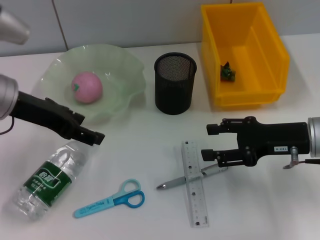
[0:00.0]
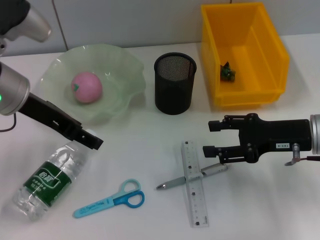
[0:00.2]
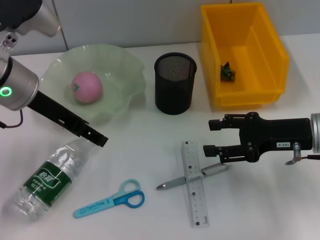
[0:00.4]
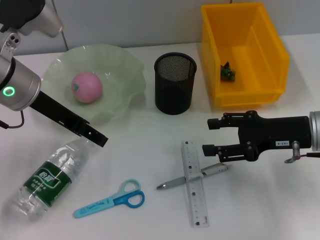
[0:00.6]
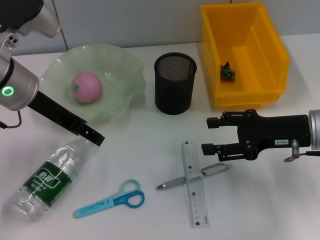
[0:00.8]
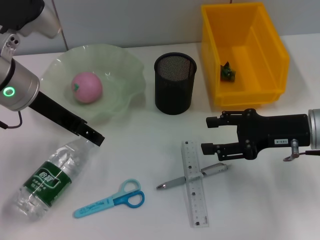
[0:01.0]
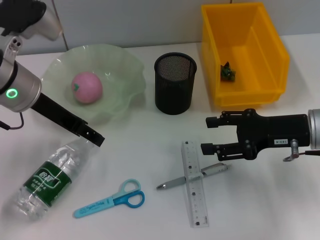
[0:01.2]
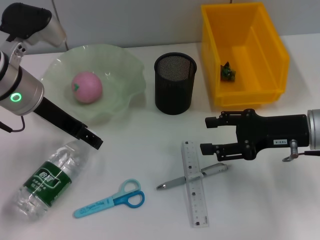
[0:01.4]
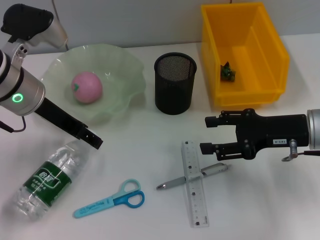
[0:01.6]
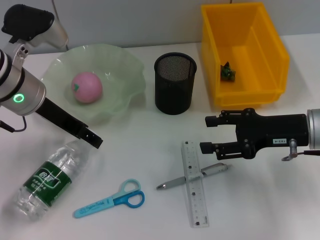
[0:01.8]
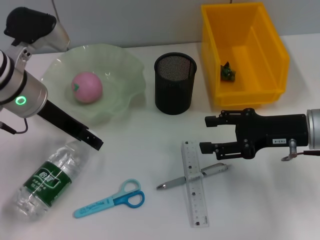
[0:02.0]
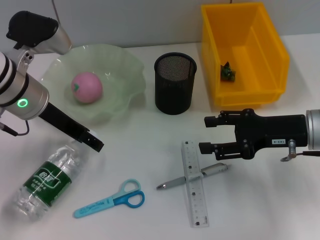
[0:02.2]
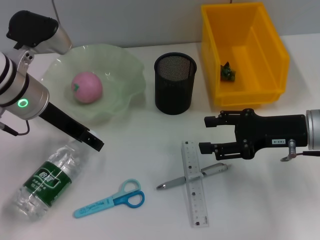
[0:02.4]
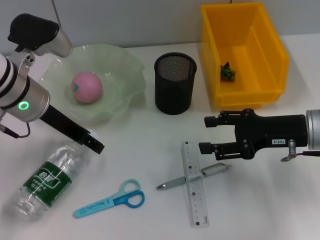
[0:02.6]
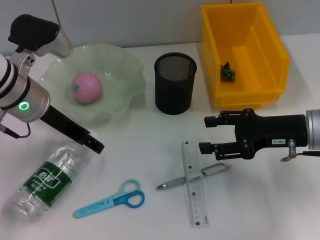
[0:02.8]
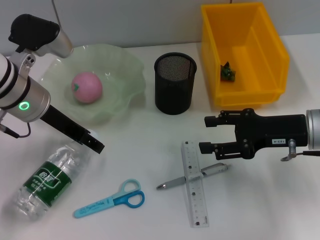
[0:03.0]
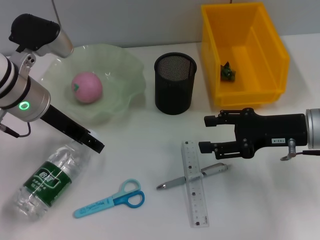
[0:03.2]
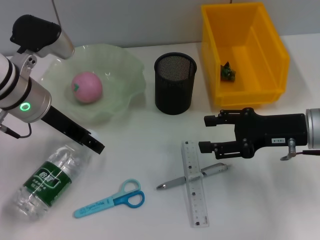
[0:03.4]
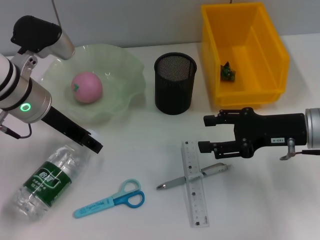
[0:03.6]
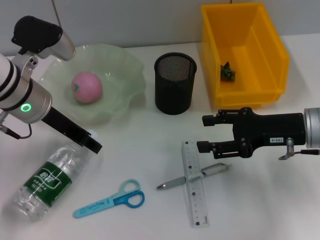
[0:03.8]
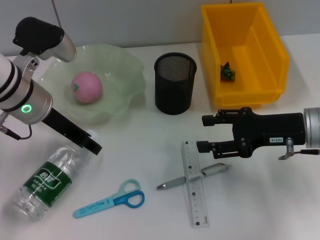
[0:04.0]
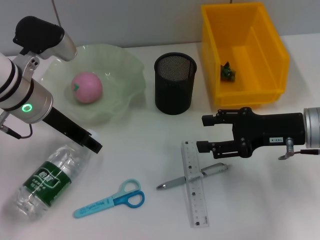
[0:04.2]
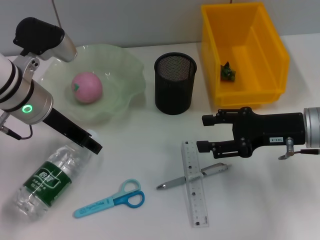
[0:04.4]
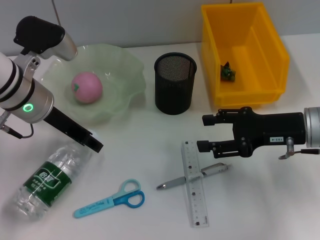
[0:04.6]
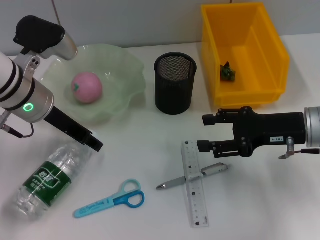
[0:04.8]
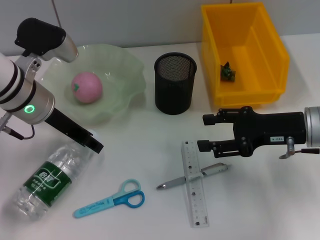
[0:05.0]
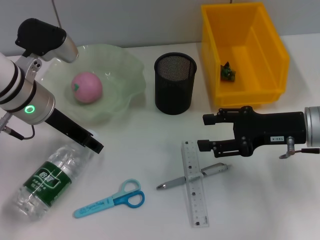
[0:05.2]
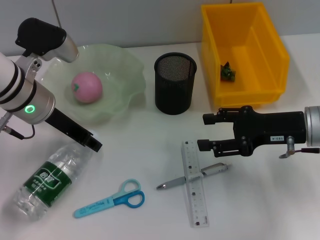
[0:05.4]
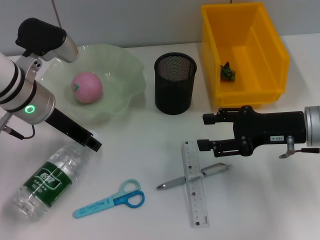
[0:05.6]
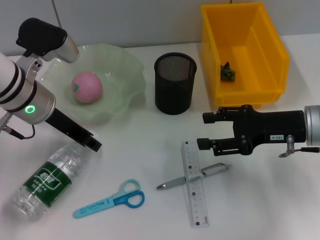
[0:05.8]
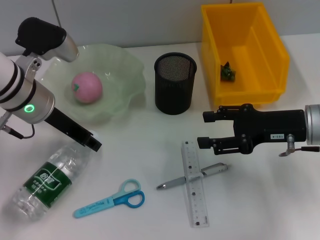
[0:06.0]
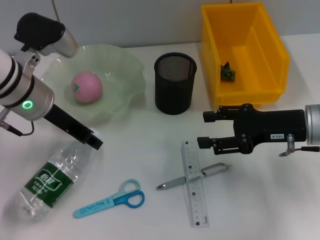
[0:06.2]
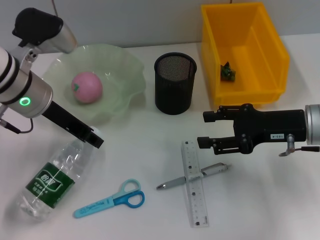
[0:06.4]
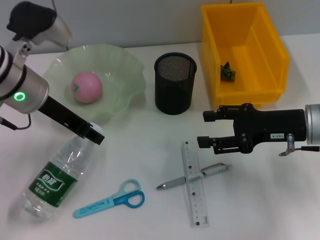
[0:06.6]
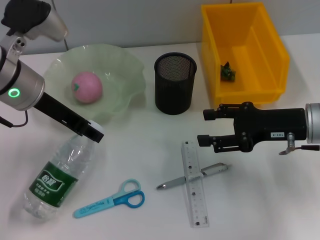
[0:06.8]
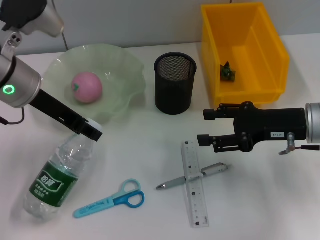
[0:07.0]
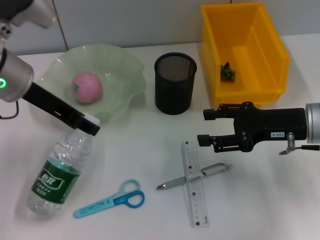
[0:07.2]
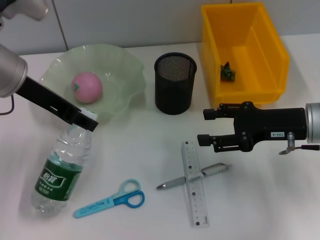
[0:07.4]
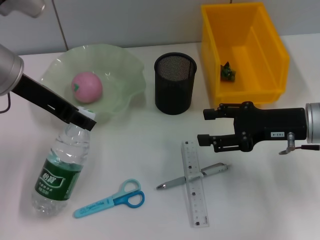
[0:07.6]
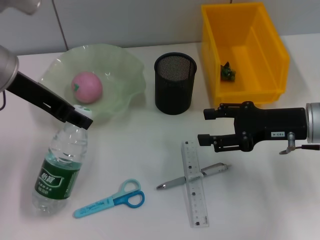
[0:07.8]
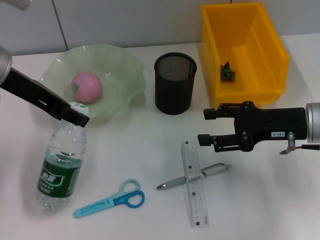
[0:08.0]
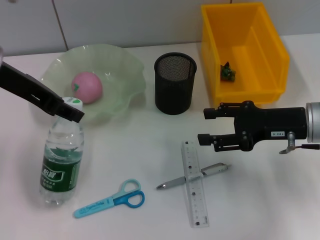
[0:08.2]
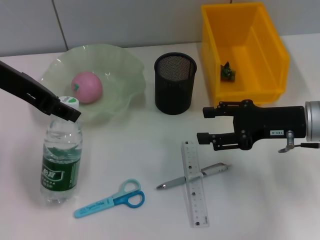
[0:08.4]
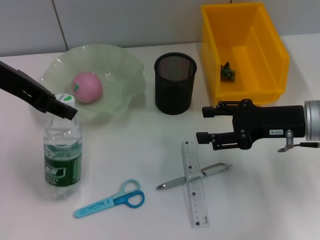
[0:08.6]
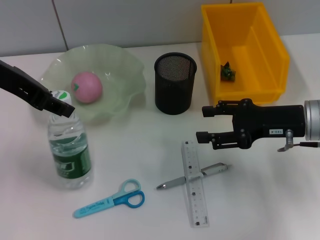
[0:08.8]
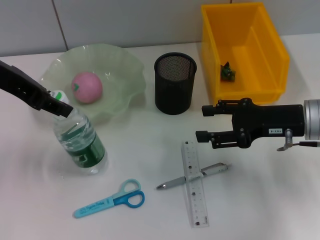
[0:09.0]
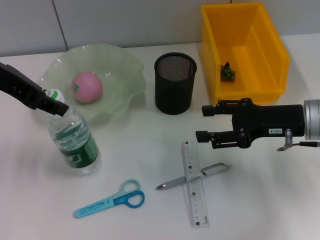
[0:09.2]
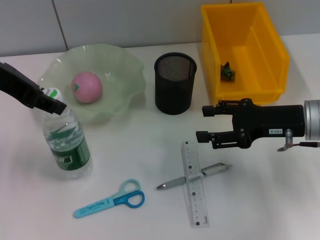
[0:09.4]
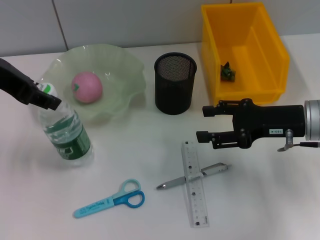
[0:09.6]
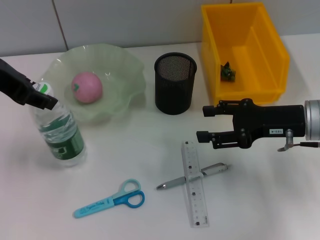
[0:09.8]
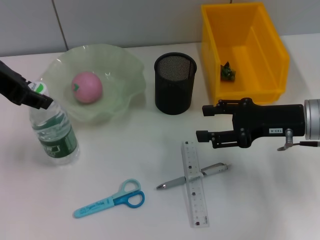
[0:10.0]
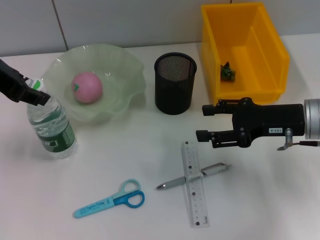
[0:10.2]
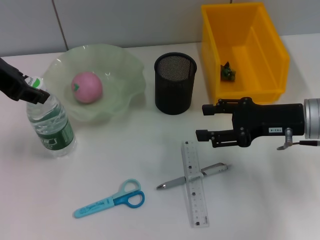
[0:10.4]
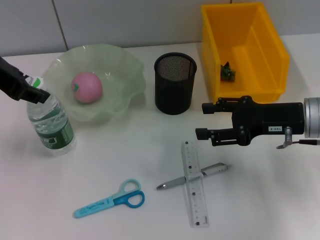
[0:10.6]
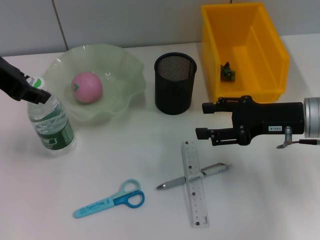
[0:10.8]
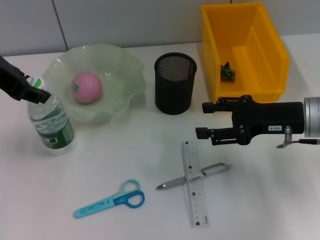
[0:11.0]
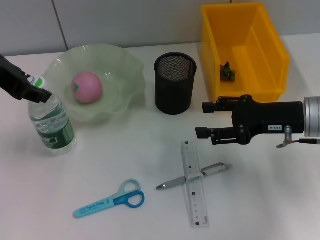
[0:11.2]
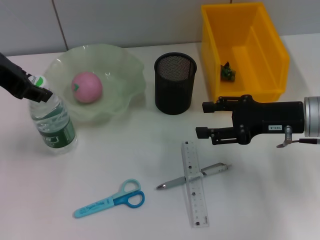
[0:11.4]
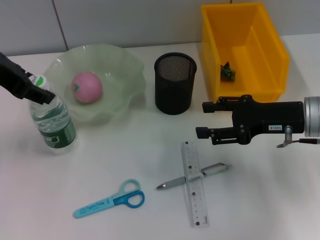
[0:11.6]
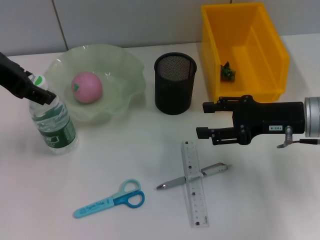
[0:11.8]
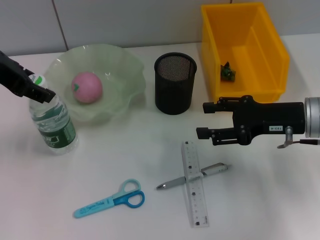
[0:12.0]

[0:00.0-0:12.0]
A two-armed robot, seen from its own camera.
Step, 0:00.0 to 0:05.8: Grab the water bottle with the left hand.
Step, 0:06.0 to 0:11.8: Place the water bottle on the table with the left hand.
0:00.0 to 0:03.0: The grippers move only a little.
0:03.0 to 0:06.0: Both grippers stay put.
0:06.0 to 0:07.6: The left gripper goes roughly 5 cm upward.
0:07.6 to 0:09.0: The left gripper changes place by roughly 5 cm.
0:09.0 to 0:10.4: The grippers stay close to where they were, moving slightly.
0:10.4 to 0:12.0: Both grippers stay about where they are.

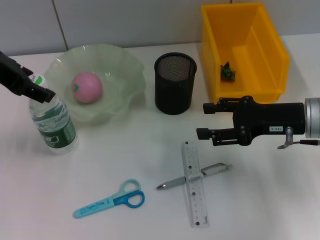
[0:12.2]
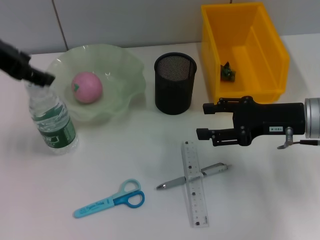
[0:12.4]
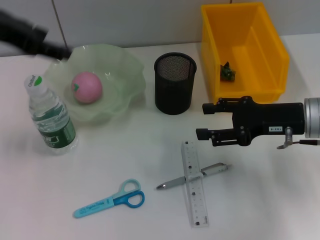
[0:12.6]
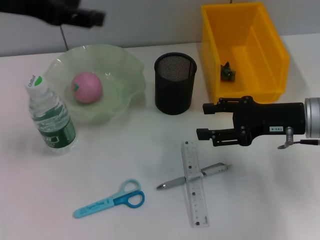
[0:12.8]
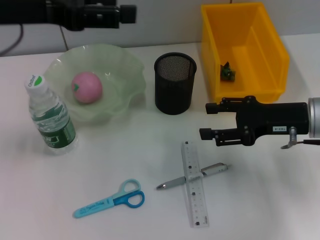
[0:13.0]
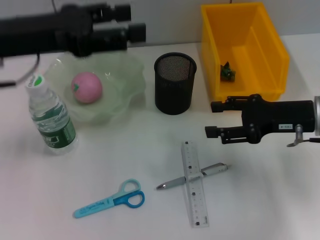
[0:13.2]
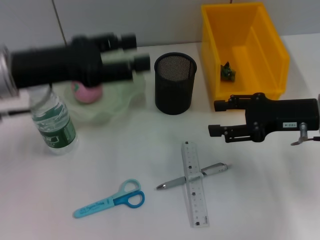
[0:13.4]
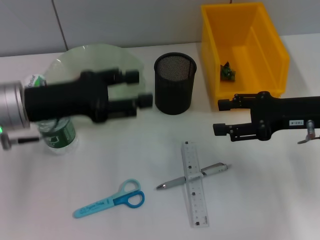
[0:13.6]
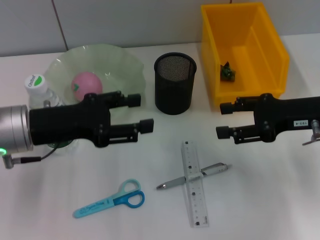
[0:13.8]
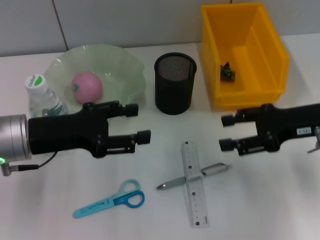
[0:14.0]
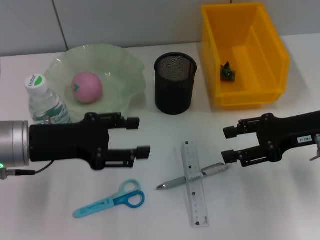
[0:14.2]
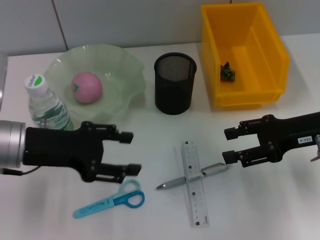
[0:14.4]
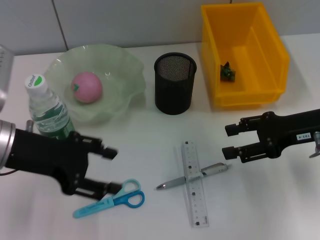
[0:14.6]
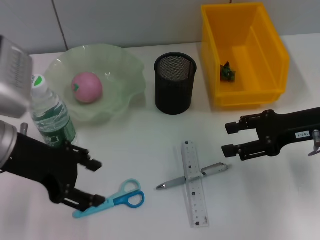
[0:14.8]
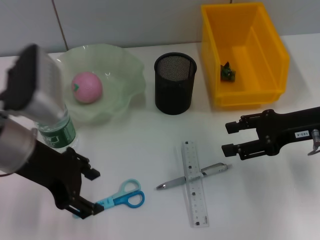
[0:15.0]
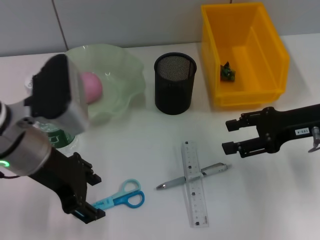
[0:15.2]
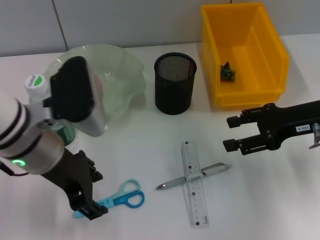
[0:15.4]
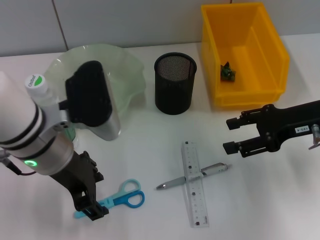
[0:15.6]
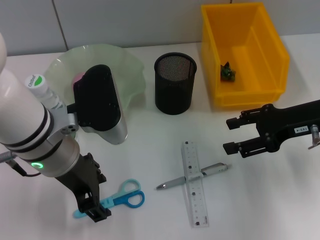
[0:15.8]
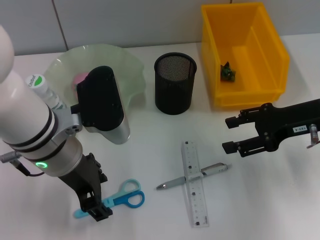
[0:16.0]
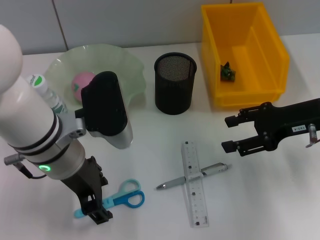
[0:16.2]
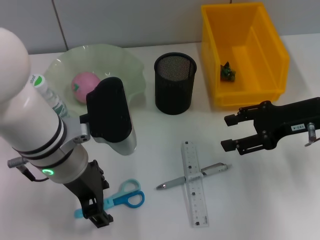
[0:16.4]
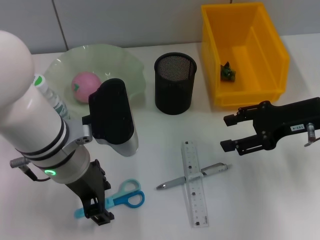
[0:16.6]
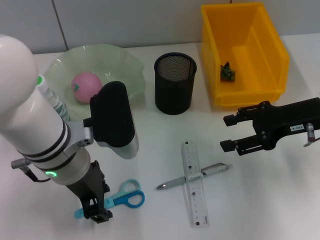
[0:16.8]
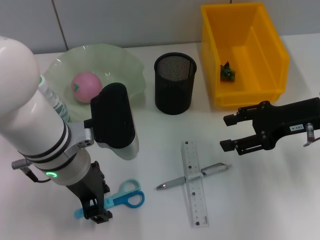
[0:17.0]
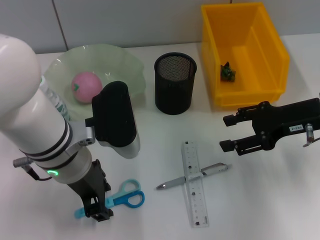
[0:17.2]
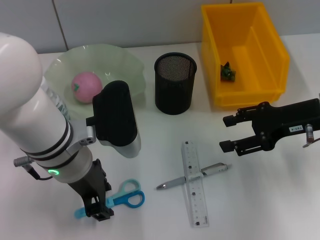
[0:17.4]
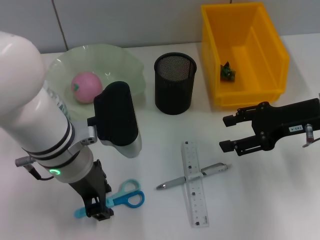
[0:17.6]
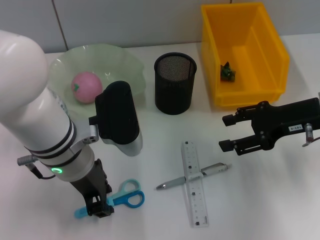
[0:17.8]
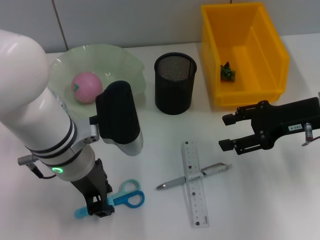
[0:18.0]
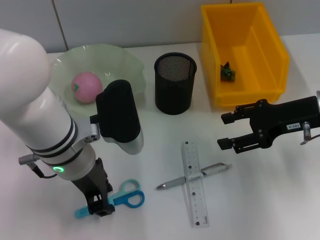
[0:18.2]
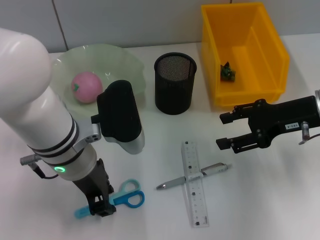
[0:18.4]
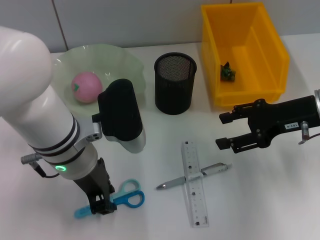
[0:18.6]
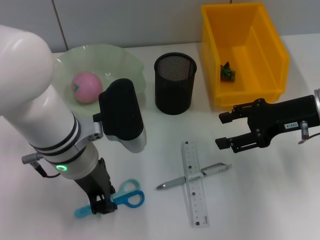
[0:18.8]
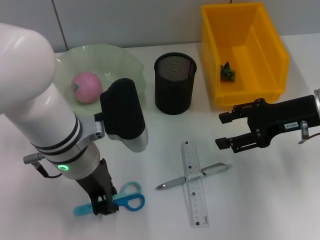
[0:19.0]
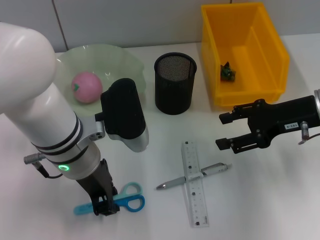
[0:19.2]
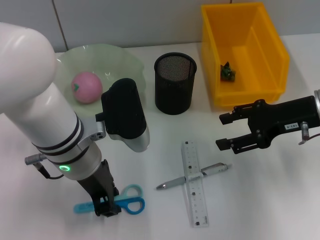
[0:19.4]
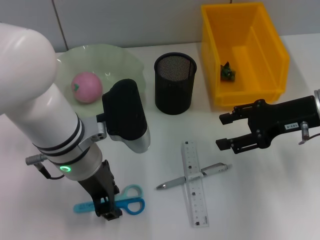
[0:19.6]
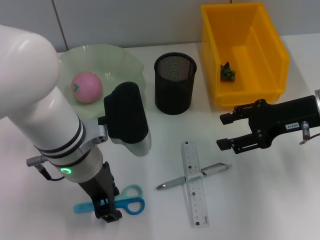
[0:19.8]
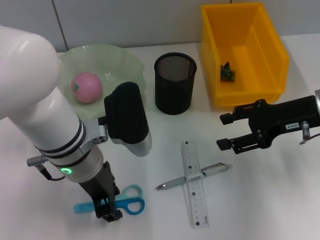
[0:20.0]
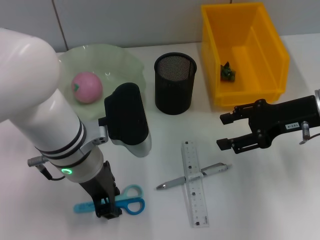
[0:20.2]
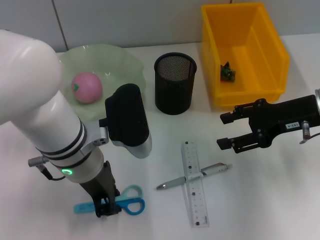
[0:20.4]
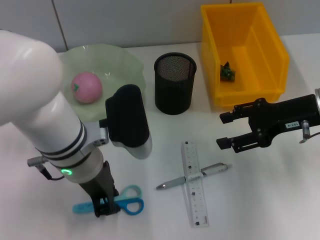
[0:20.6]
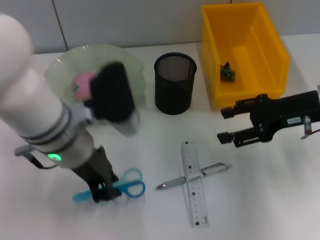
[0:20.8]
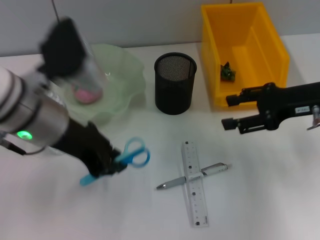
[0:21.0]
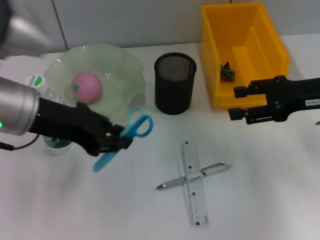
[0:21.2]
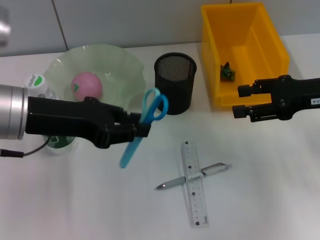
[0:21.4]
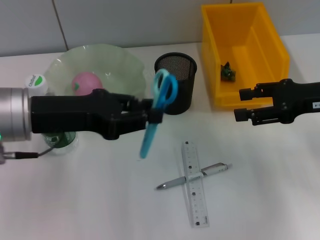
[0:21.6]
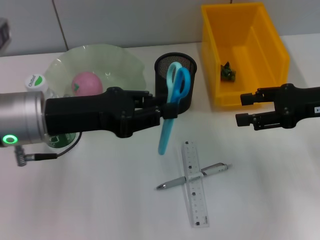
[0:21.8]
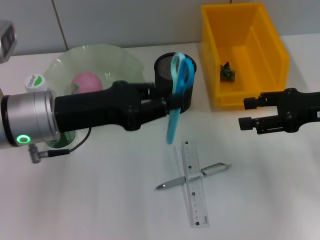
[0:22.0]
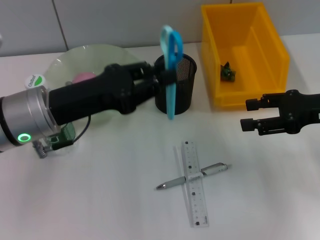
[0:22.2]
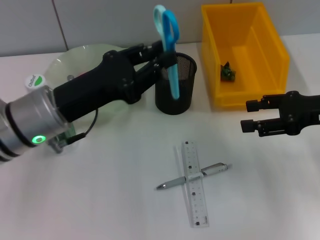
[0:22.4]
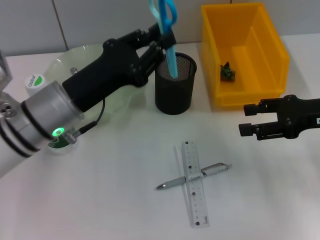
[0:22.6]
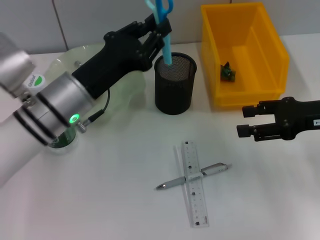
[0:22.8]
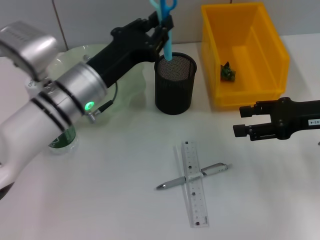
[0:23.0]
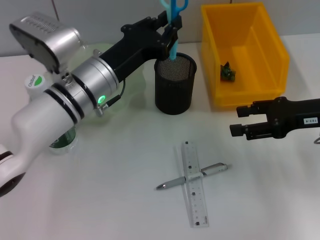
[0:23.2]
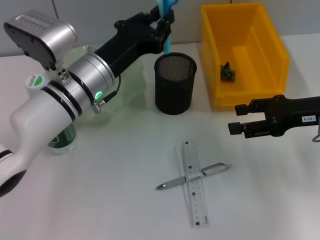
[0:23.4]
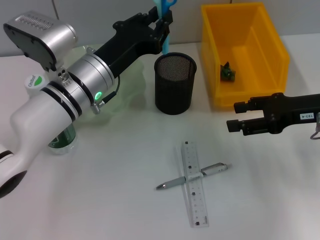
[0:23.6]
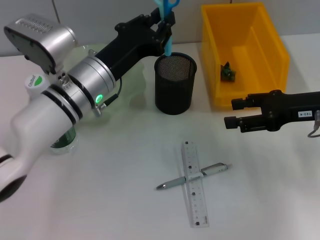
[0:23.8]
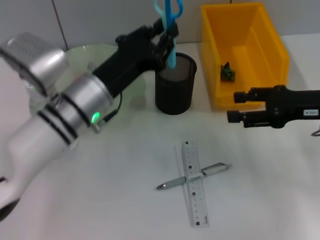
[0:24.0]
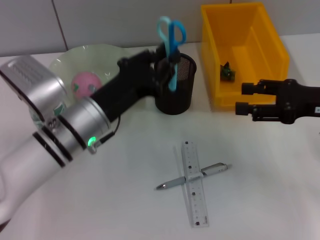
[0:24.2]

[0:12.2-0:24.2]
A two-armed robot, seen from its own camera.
Step, 0:12.2 to 0:20.4: Grab the blue scissors with the left hand.
0:12.2 to 0:13.8: The left gripper shifts approximately 15 cm downward.
0:15.2 to 0:16.6: The left gripper heads to the right, covering roughly 5 cm.
0:16.6 to 0:18.2: The left gripper closes up.
0:18.2 to 0:19.8: The two grippers keep their place.
0:19.8 to 0:21.2: The left gripper is displaced to the left and upward by about 10 cm.
0:21.2 to 0:22.6: The left gripper moves downward, some 10 cm.
